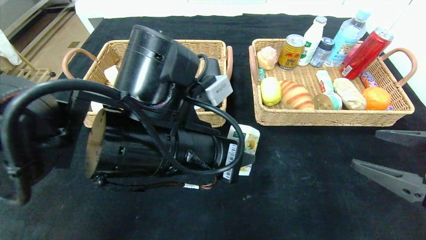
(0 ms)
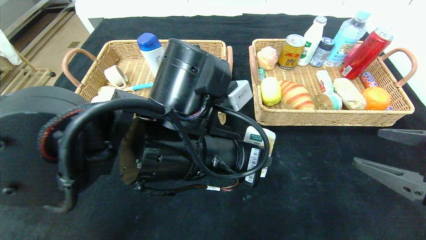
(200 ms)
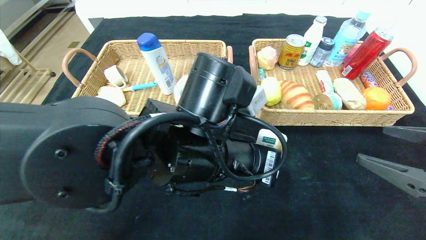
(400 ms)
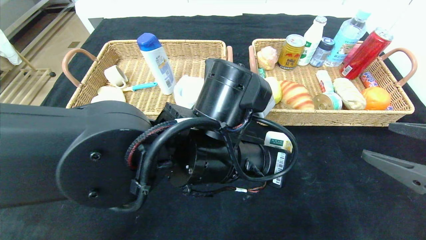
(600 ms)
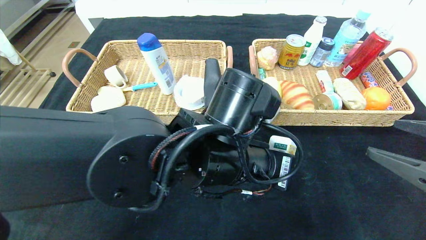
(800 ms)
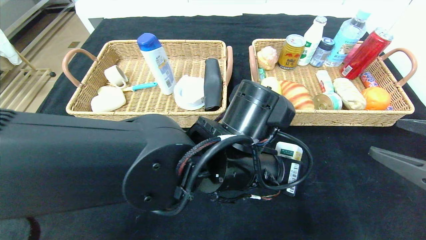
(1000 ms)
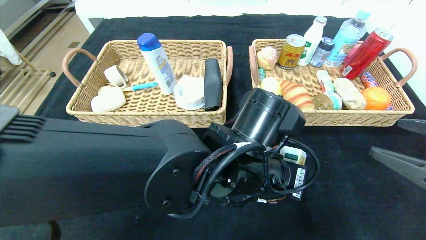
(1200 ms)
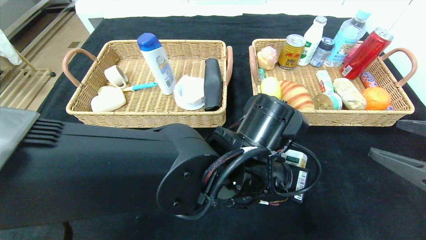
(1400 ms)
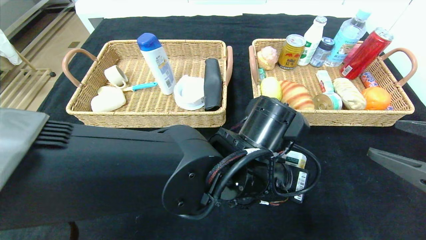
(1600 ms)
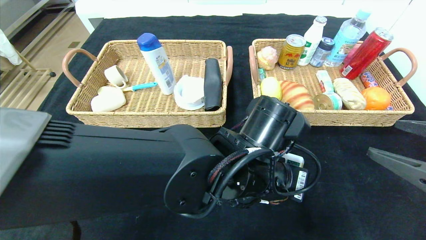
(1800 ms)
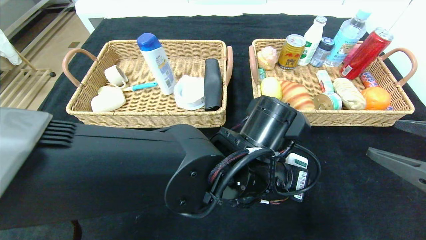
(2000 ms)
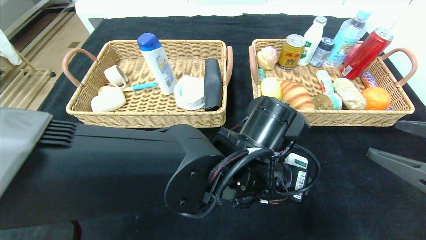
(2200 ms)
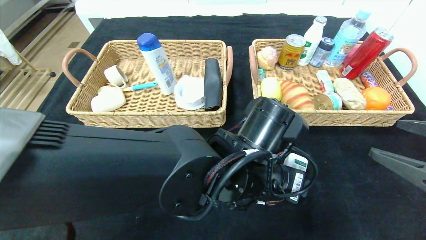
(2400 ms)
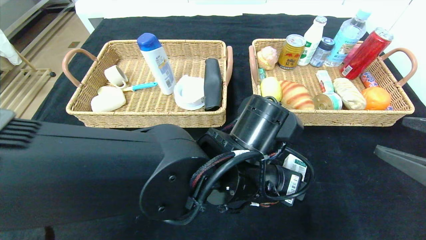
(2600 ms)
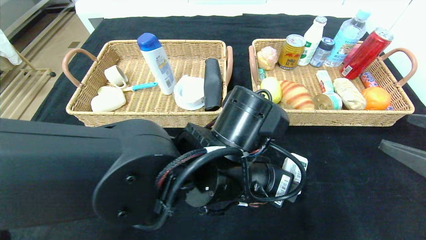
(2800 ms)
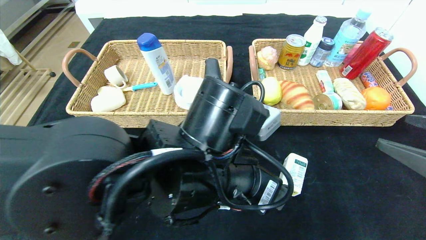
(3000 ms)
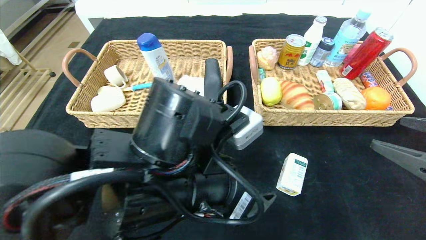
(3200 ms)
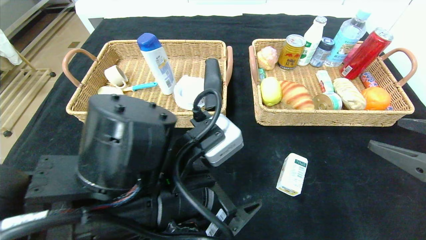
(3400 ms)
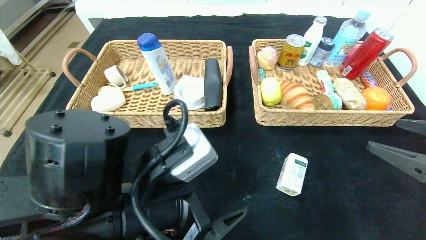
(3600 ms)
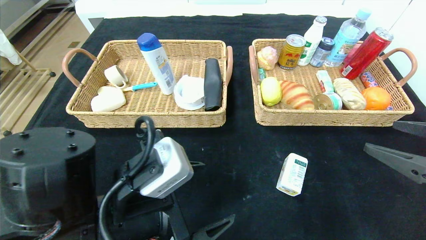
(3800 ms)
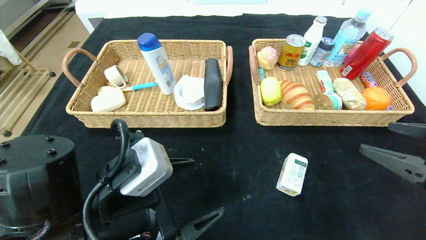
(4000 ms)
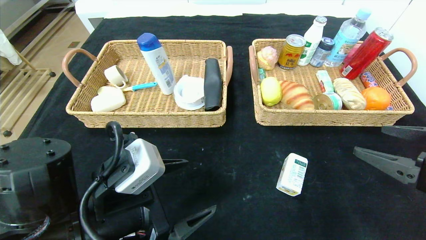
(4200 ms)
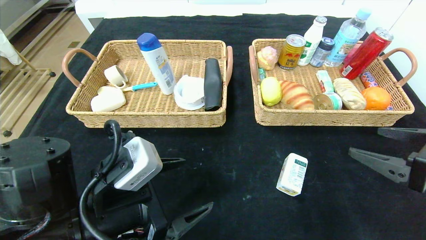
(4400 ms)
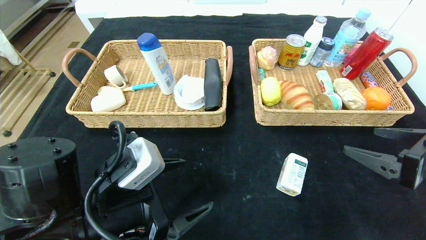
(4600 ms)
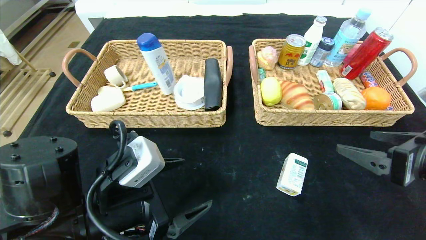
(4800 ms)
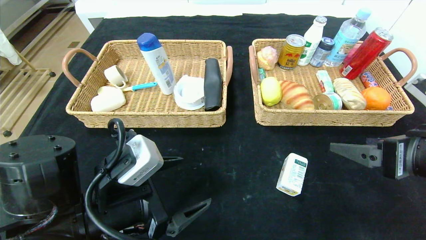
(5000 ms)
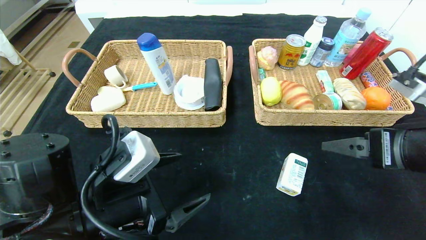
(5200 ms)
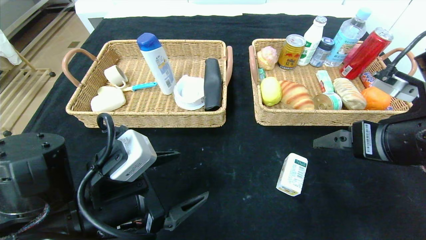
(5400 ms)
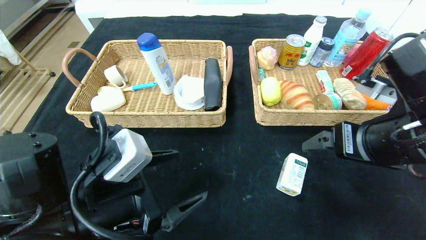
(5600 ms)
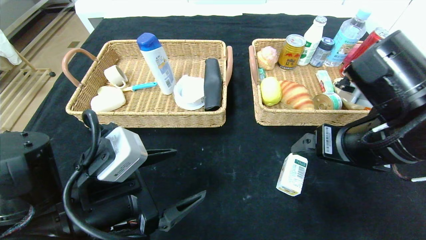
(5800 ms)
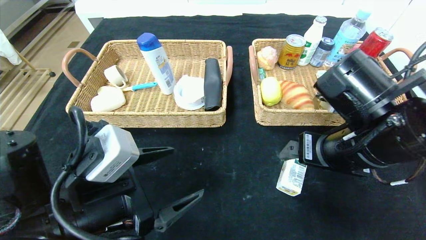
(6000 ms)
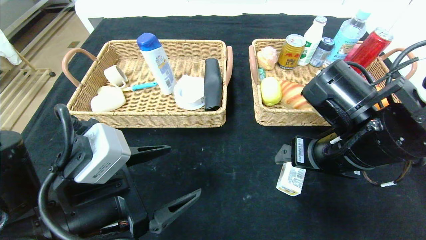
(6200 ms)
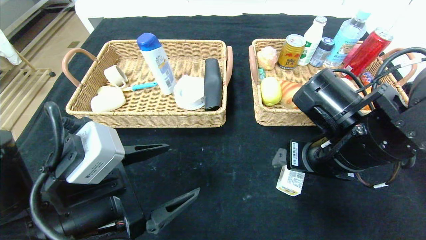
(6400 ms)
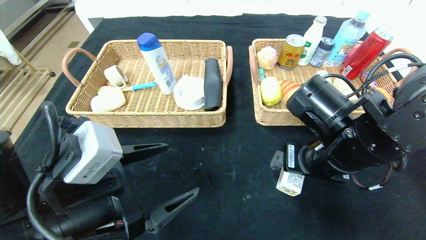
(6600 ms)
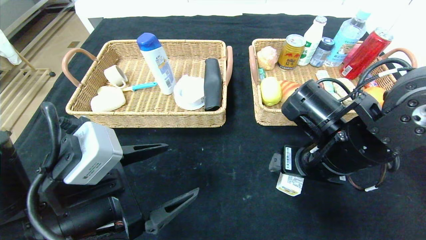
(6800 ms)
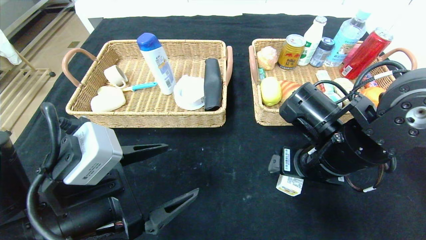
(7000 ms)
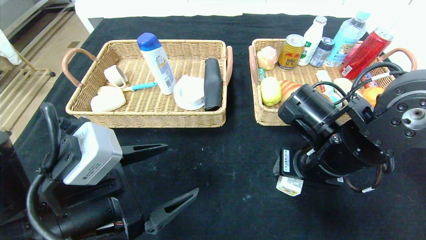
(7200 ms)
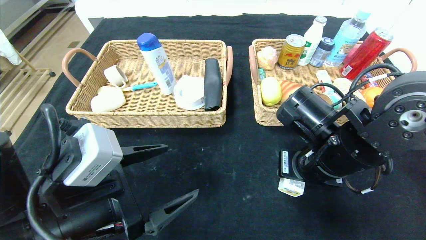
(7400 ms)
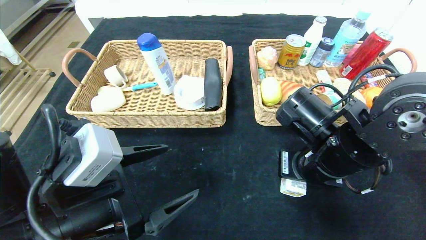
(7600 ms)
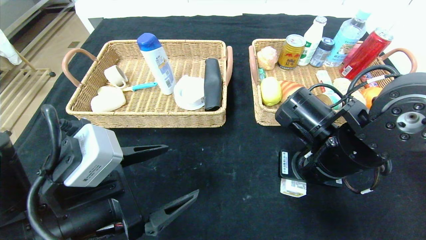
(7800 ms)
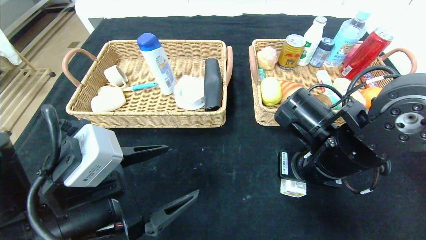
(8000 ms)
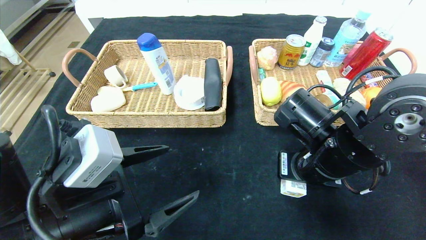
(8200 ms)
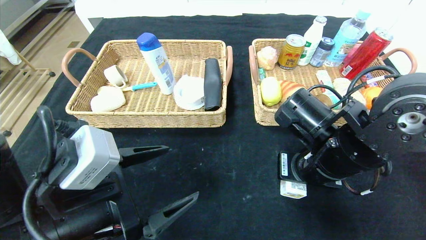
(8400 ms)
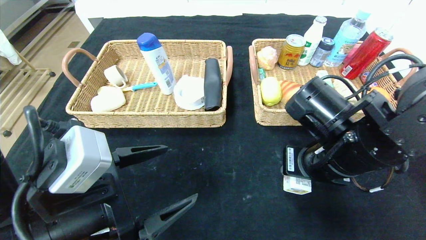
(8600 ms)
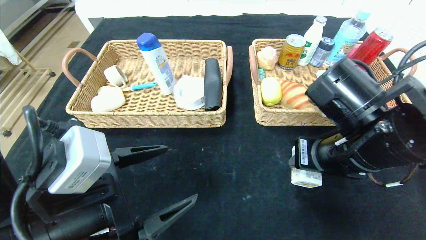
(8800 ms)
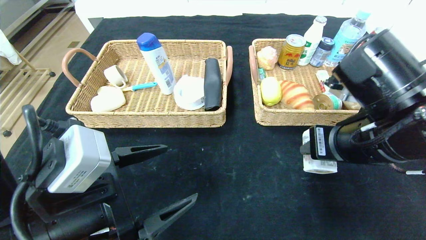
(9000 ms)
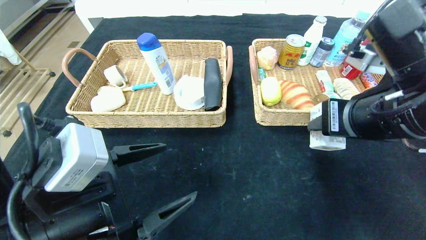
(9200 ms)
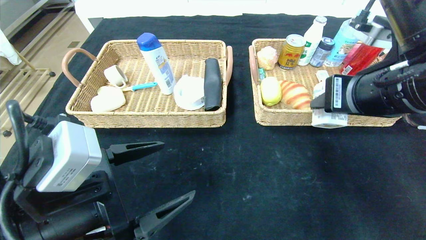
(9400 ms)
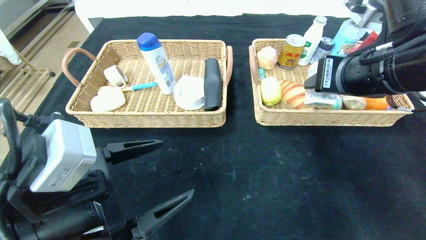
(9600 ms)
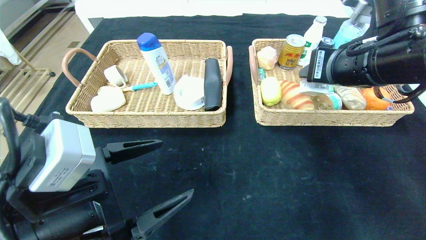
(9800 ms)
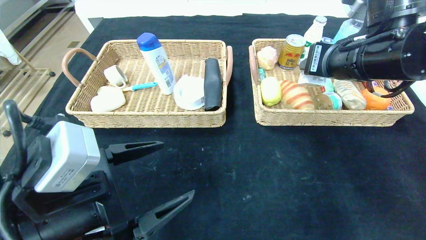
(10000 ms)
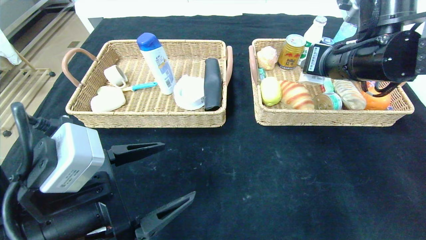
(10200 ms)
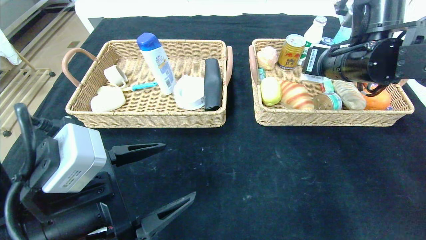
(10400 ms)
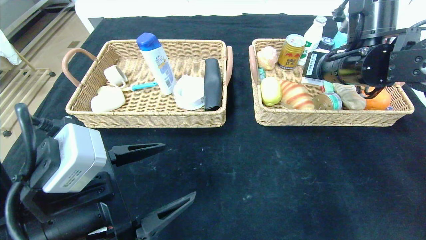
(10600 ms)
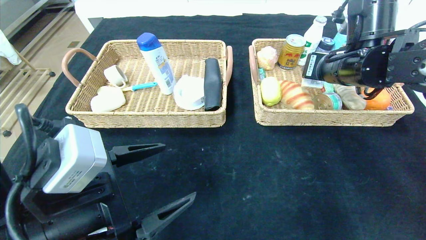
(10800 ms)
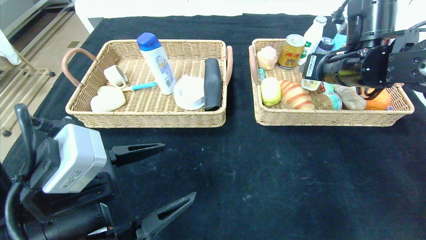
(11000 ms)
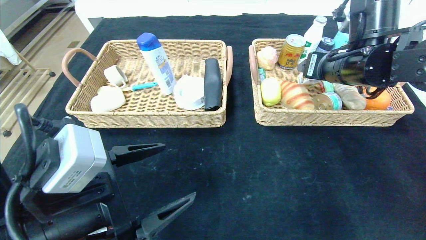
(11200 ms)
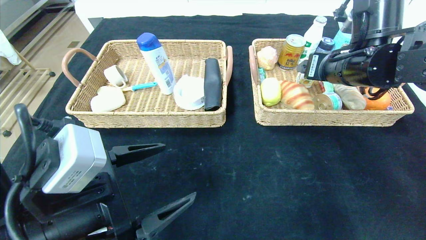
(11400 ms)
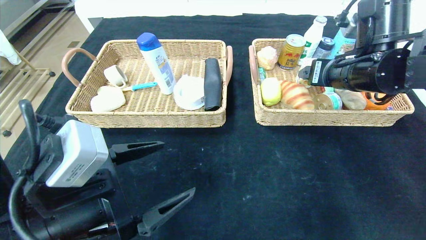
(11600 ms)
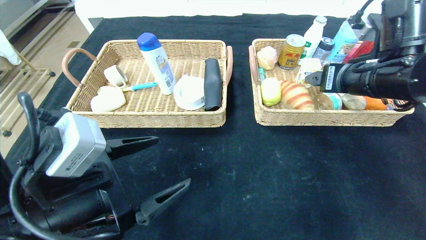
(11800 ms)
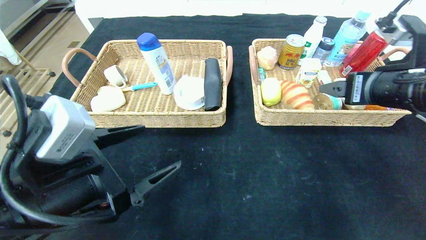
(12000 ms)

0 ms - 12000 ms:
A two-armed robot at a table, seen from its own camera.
Step, 0 ms - 3200 ms: Place the square chewing gum in the center of the table.
0 ms - 1600 ms: The left gripper heads to the right and downward, covering approximately 10 cm.
1600 ms - 3000 ms: The left gripper travels to the left by some 5 cm, and opens up.
3000 ms - 4400 ms: The left gripper goes approximately 15 cm to the left.
4400 ms - 6000 ms: The right gripper goes roughly 15 cm to the left.
6000 ms - 7600 ms: The right gripper changes place by some 5 cm, and closes up.
7600 ms - 9000 ms: The right gripper is displaced upward by about 5 cm.
9000 ms - 10400 ms: The right gripper heads forward and upward, covering some 15 cm.
10400 ms - 12000 ms: The right gripper shifts some 10 cm backward, and opens.

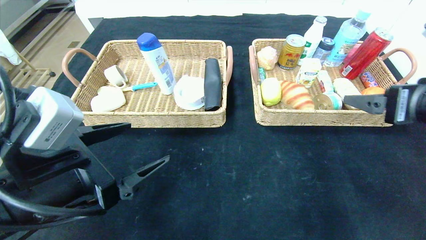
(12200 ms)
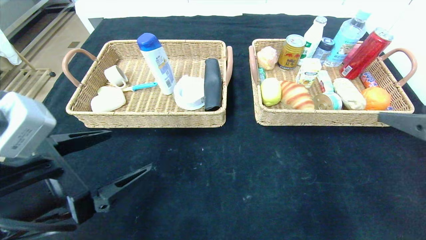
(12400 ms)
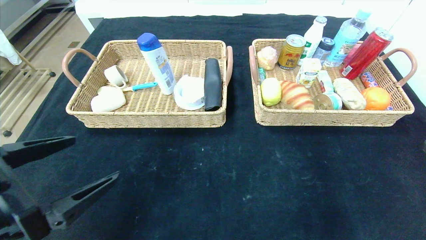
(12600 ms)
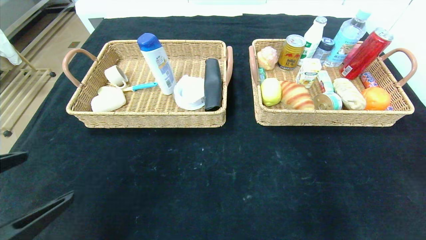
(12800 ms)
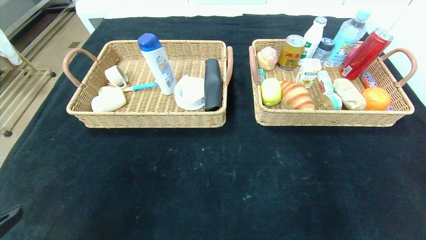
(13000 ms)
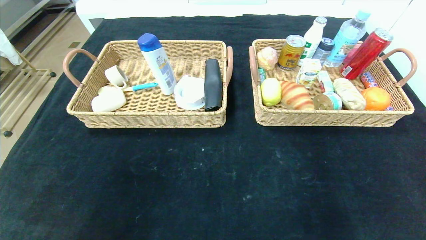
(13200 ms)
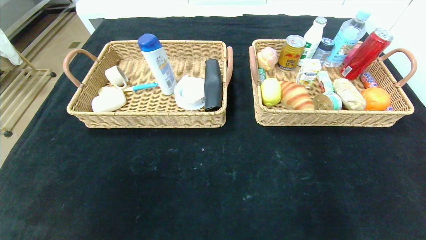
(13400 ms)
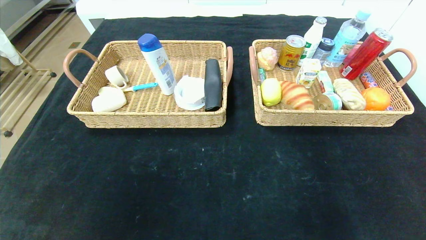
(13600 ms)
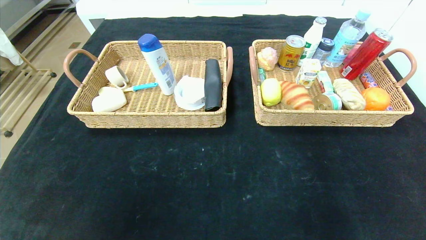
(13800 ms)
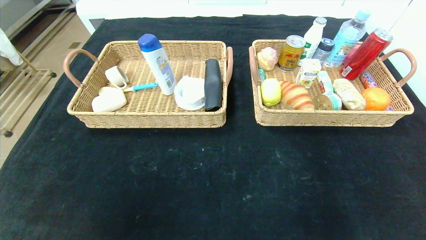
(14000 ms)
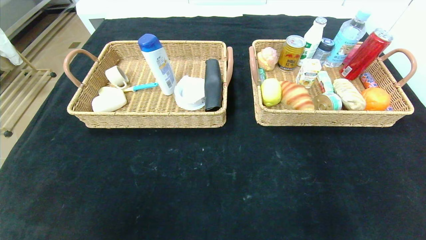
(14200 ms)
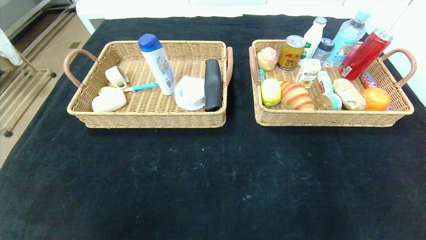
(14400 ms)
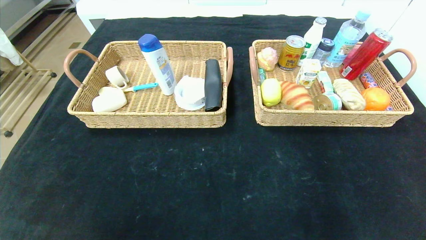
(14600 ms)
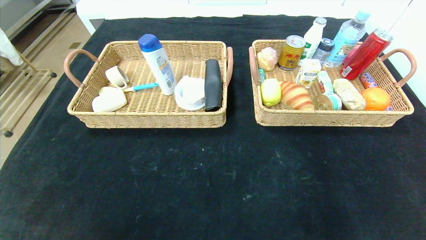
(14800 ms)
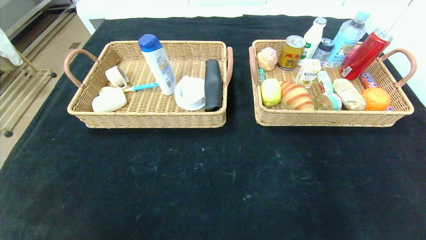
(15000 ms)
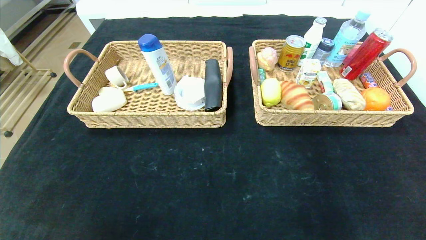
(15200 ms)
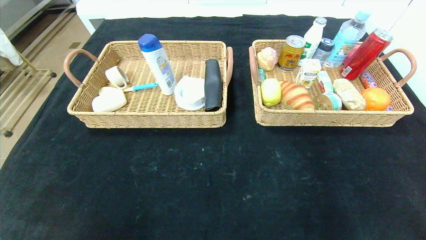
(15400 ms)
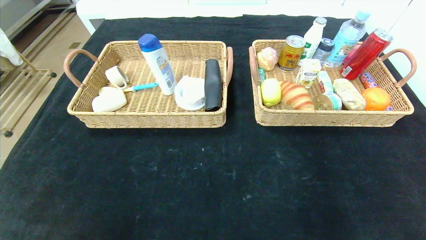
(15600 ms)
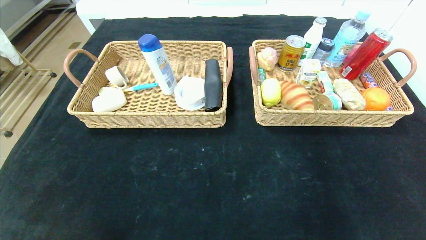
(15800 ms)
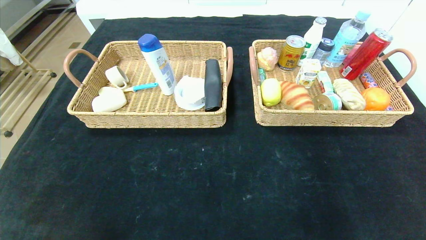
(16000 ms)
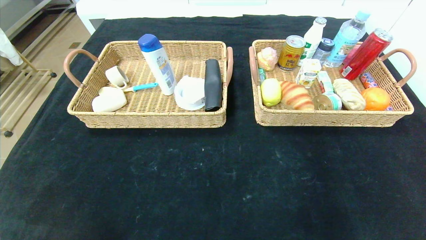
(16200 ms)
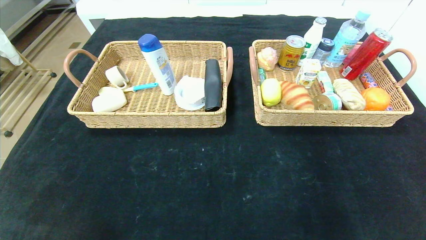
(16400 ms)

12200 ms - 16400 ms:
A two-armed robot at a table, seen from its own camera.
12200 ms - 13600 ms: The two grippers go about 25 cm backward.
